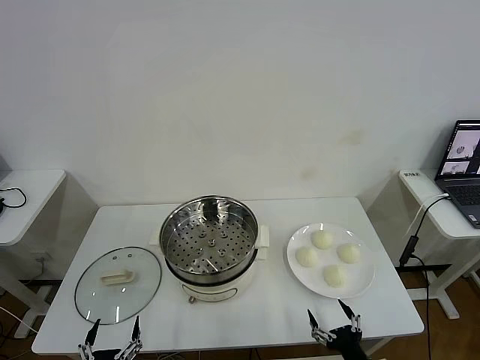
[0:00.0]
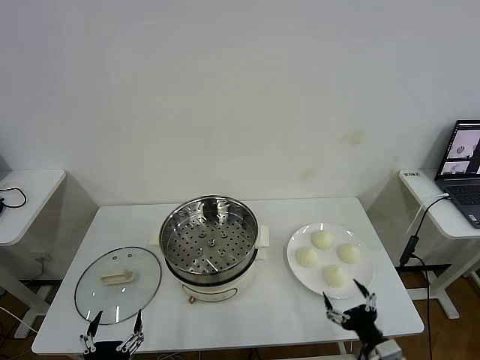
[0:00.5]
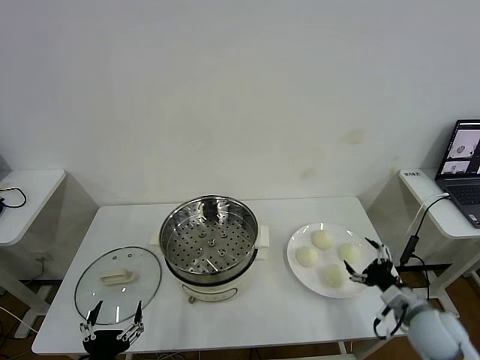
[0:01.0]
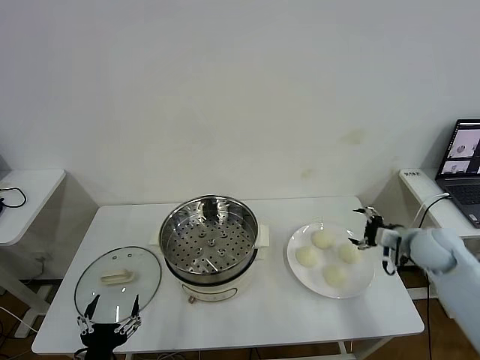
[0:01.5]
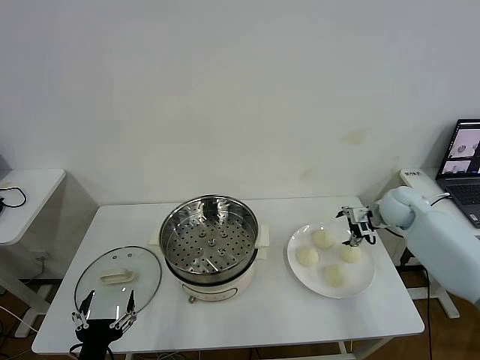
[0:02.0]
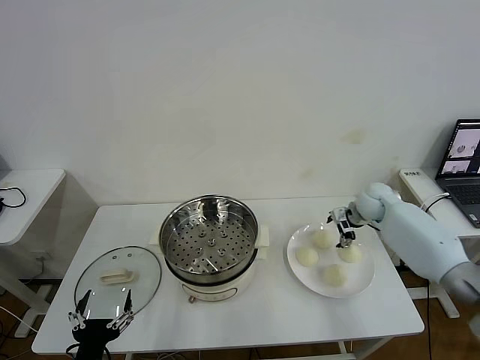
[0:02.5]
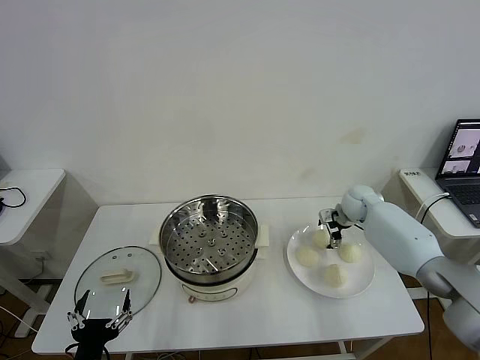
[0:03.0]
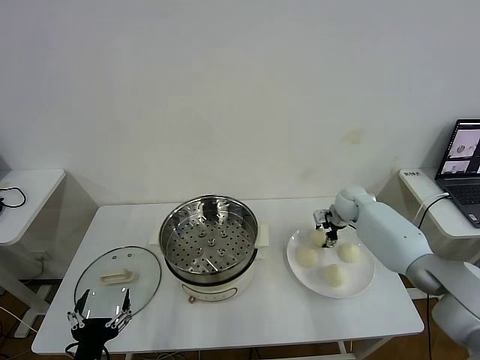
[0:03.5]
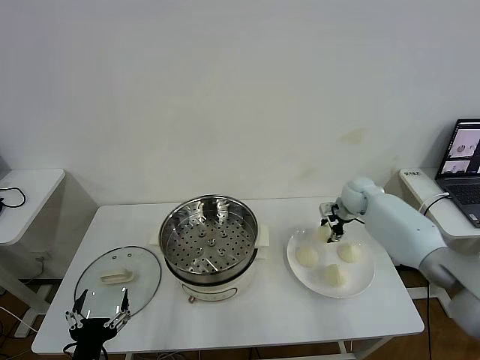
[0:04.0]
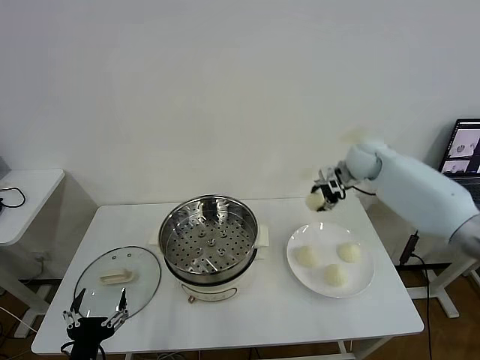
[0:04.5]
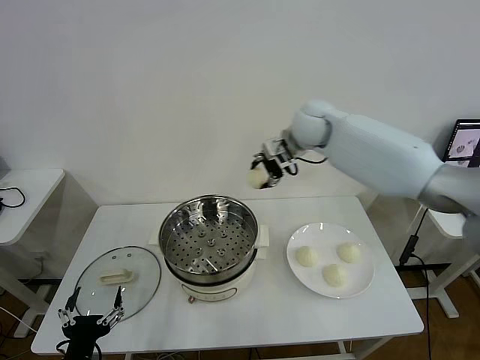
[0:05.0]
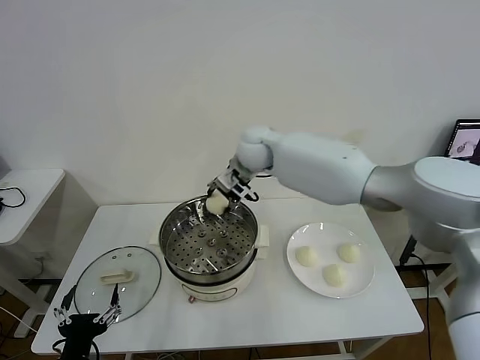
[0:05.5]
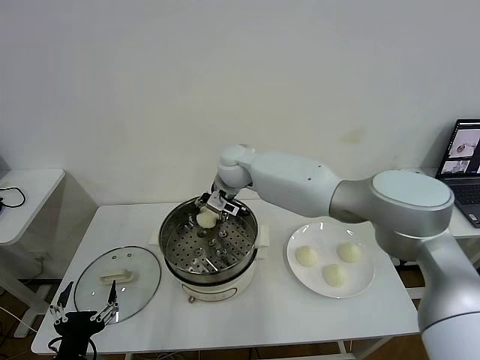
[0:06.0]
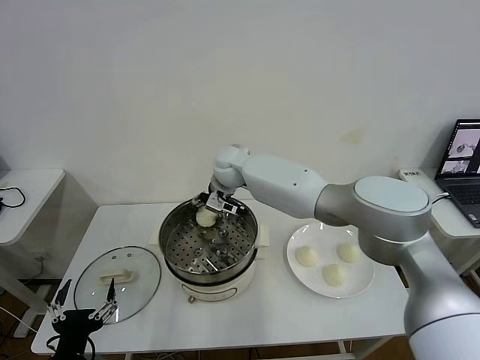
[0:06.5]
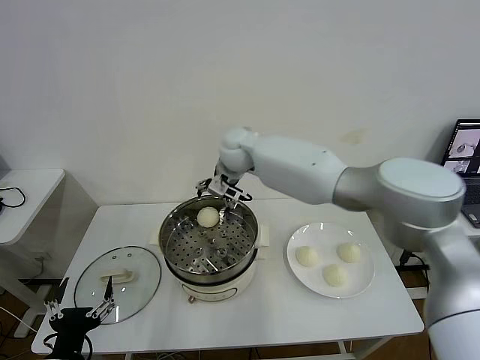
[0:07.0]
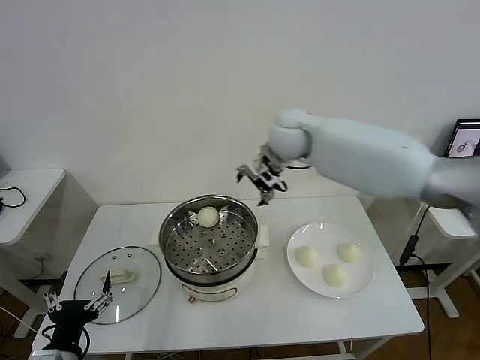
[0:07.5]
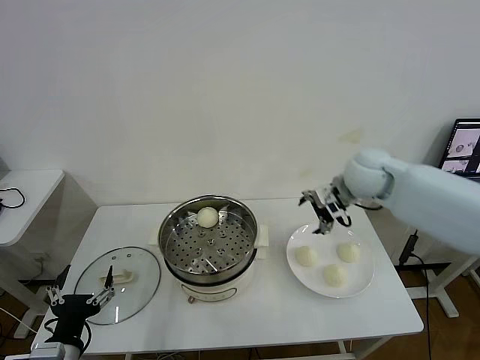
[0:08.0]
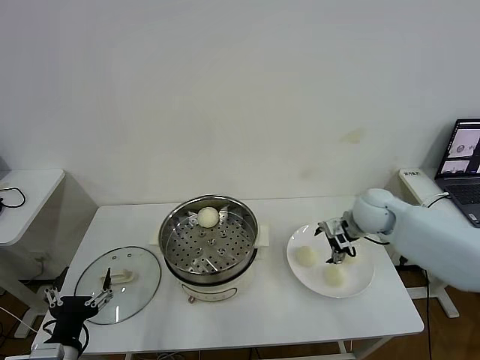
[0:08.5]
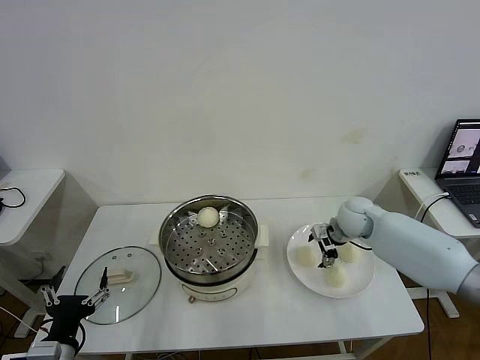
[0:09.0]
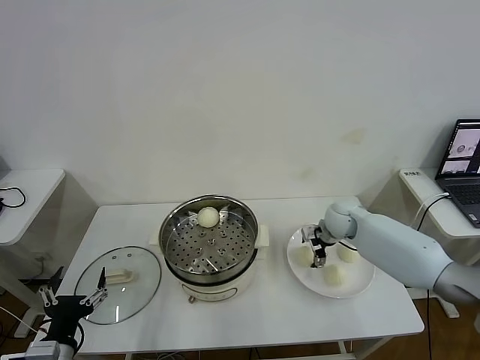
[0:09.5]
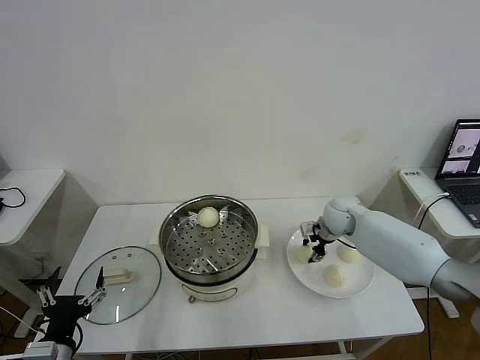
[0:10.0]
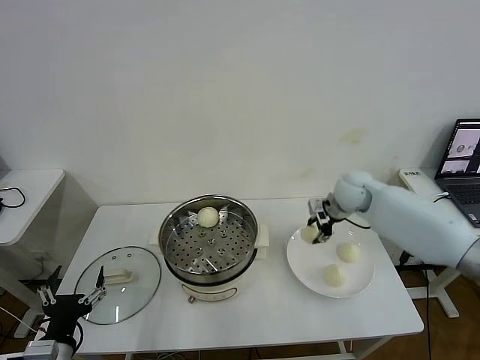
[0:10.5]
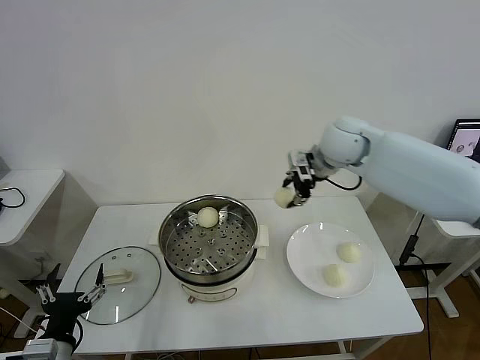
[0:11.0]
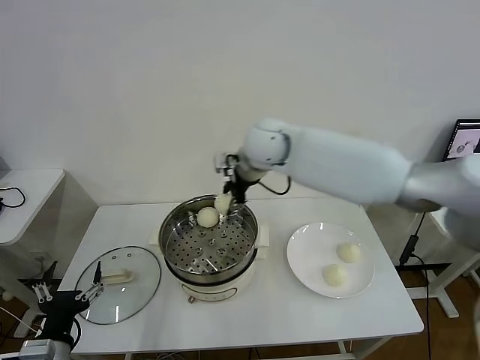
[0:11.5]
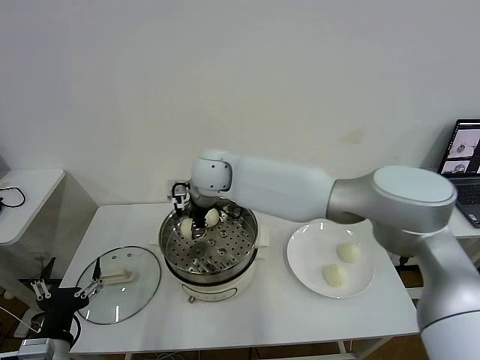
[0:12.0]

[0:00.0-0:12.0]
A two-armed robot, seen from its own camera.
Task of the whole recording: take steamed baozi put them in steamer then cover it.
Step, 0:00.0 to 0:03.5: Grasp the baozi in the plate with right gripper.
Step, 0:04.0 to 0:06.5: Place the baozi on the steamer with right gripper.
Step, 0:07.0 to 0:10.0: Grasp the baozi in the plate with right gripper.
0:02.0 to 0:04.0: The right gripper goes about 10 cm forward and to the left, and closes up.
0:04.0 to 0:06.0: The right gripper is displaced to the left by about 35 cm.
0:06.0 to 0:08.0: The right gripper shifts some 30 cm to the right, and opens up.
0:08.0 to 0:10.0: The right gripper is displaced downward by some 15 cm, and closes.
0:10.0 to 0:12.0: The right gripper is displaced to the left and upward by some 35 cm.

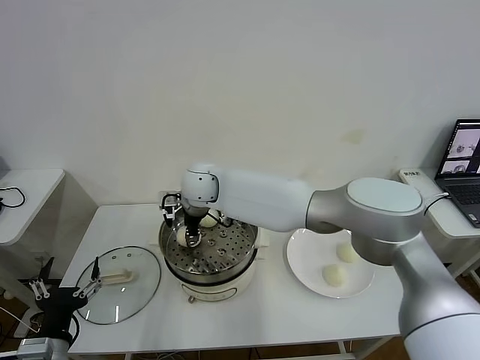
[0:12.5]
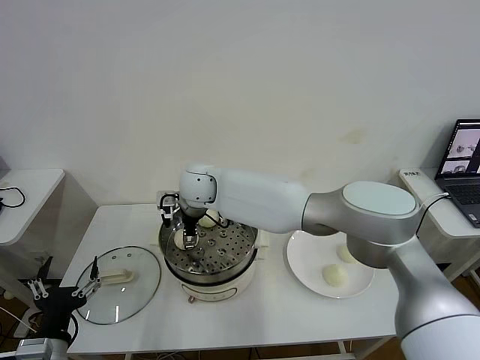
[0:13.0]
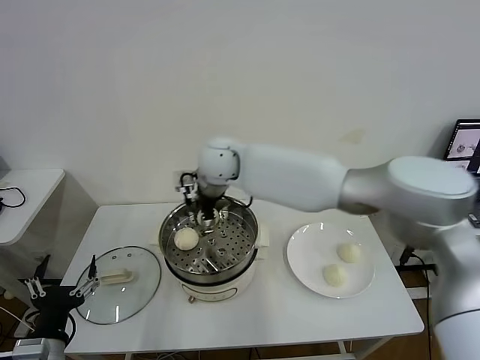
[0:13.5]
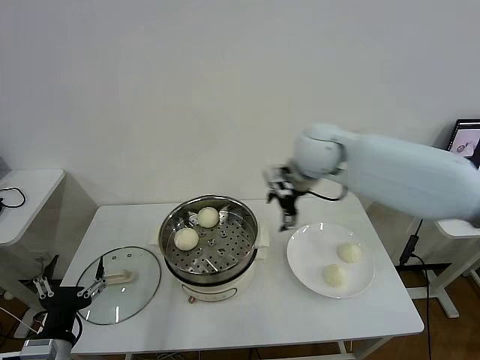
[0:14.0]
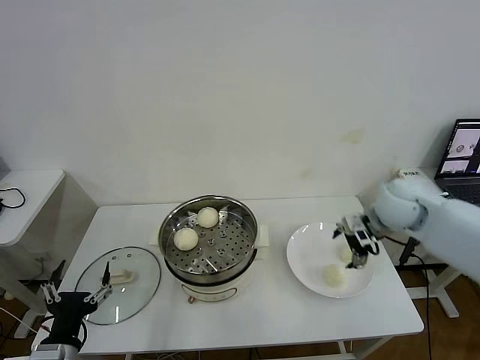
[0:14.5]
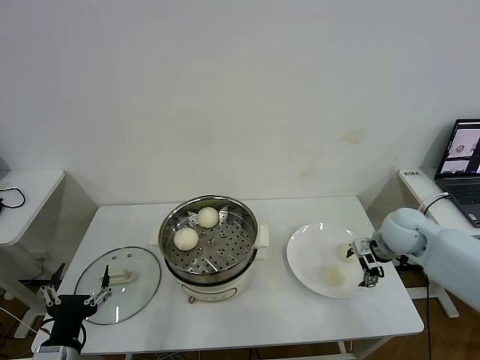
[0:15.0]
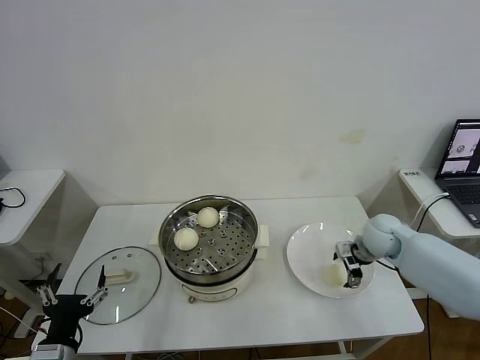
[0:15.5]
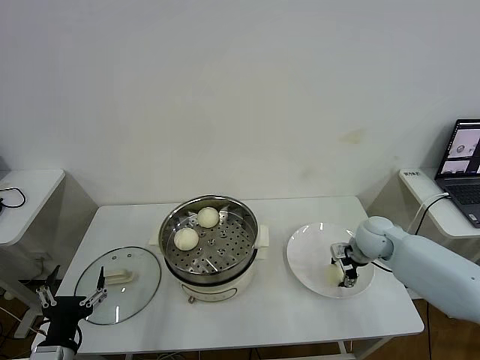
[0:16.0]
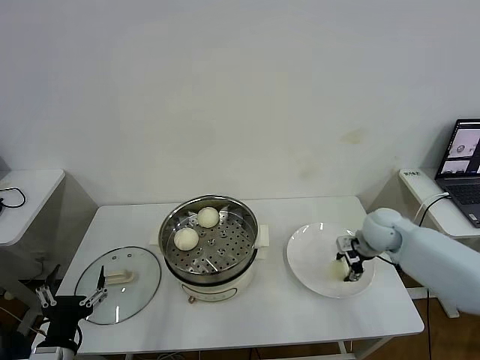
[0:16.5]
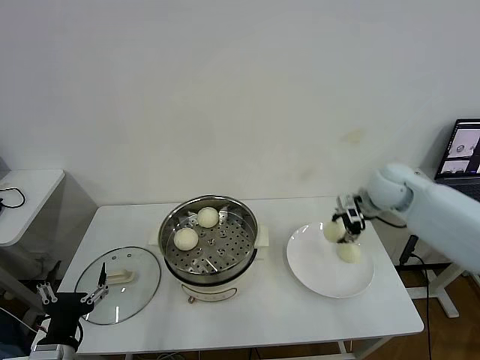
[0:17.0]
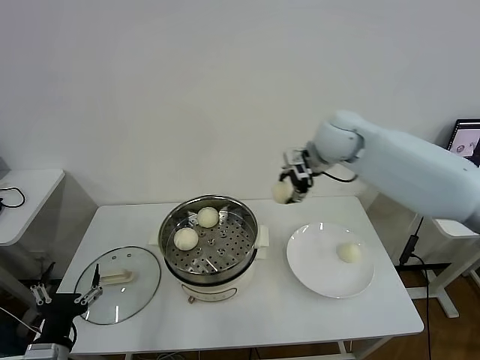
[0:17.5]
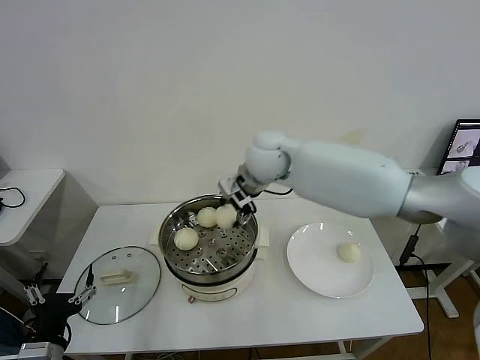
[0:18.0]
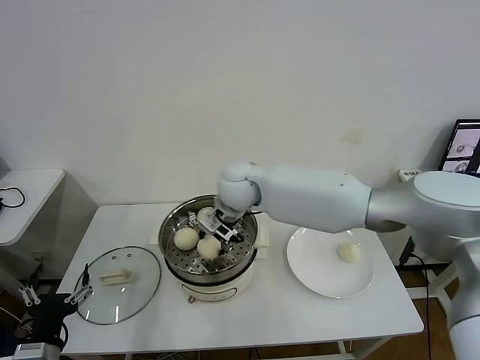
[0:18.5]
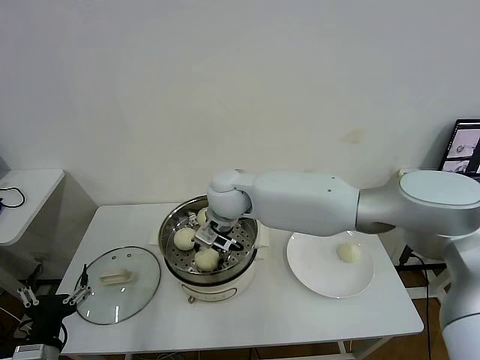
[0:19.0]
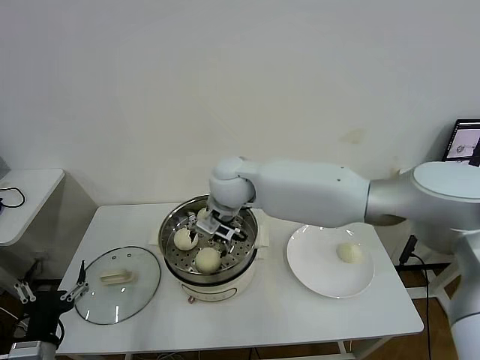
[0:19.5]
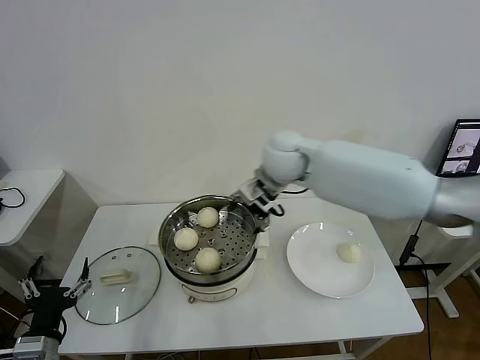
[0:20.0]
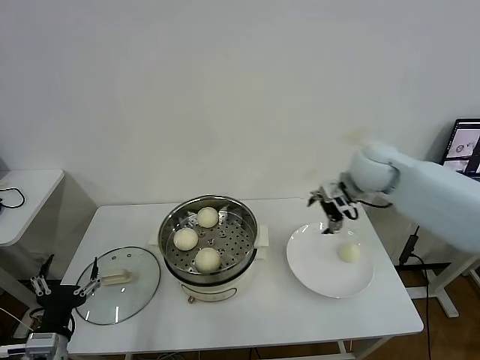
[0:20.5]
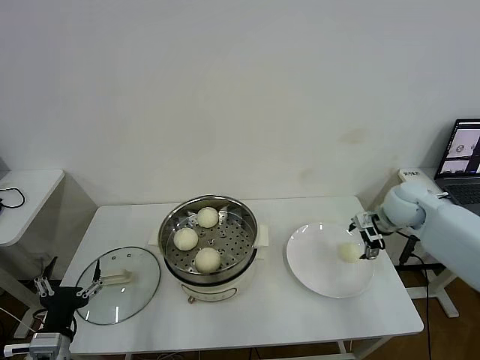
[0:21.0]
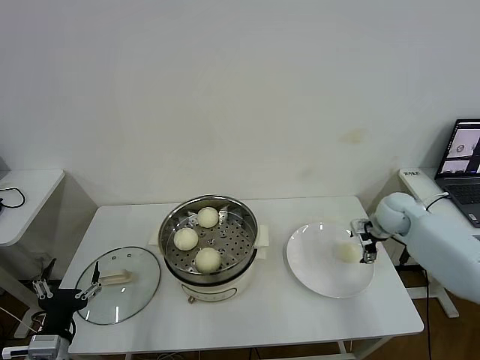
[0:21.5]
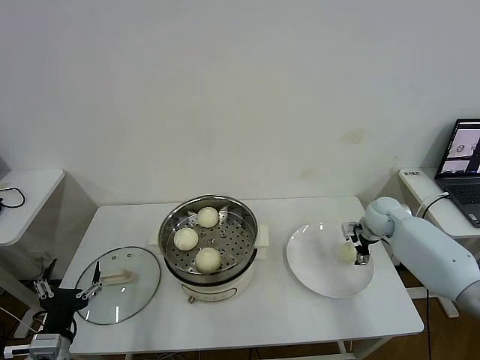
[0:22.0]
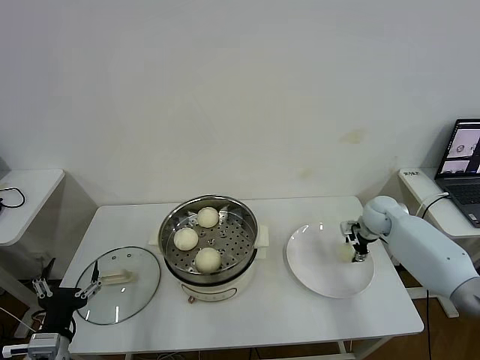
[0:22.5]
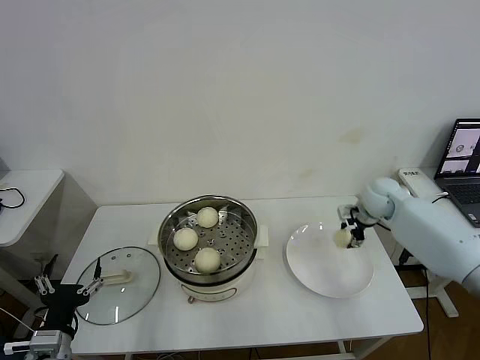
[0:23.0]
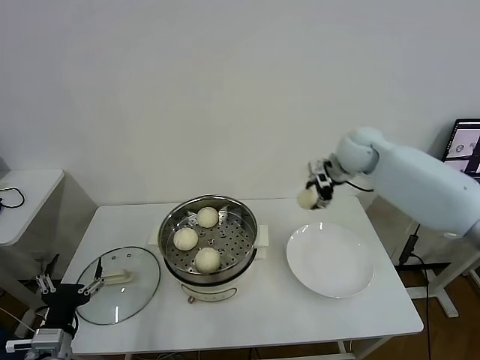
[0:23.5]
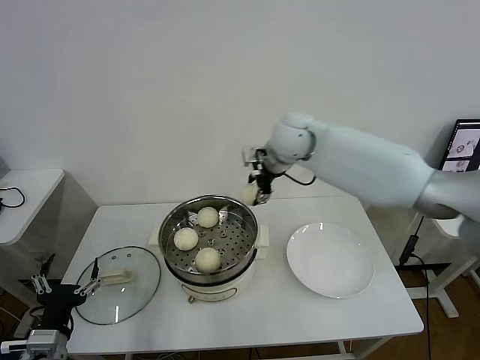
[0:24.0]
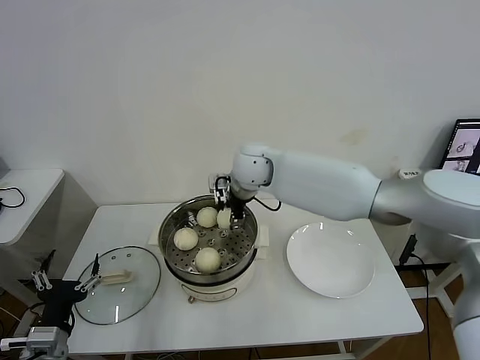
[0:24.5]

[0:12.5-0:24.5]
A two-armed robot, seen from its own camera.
Task of the whole recording: take steamed baozi put them in steamer then cover it.
Step, 0:13.5 to 0:16.0: Grasp the baozi in the plate with right gripper.
Step, 0:16.5 to 0:19.0: Place the baozi on the steamer with right gripper.
Step, 0:19.5 to 0:22.5: Grasp the baozi in the plate with right gripper.
0:12.5 to 0:14.5: The right gripper is displaced to the right by about 40 cm, and opens its fingers.
0:14.5 to 0:16.5: The right gripper heads downward, covering about 10 cm, and closes up.
0:16.5 to 0:18.5: The right gripper goes approximately 35 cm to the left.
0:18.5 to 0:20.5: The right gripper moves to the right, roughly 30 cm, and opens up.
0:20.5 to 0:22.5: The right gripper goes roughly 20 cm downward and to the right, and closes up.
0:22.5 to 0:24.5: The right gripper travels to the left and upward by roughly 40 cm.

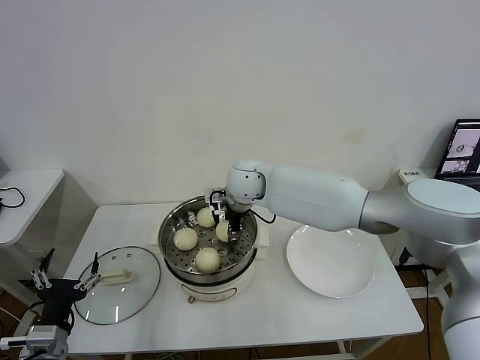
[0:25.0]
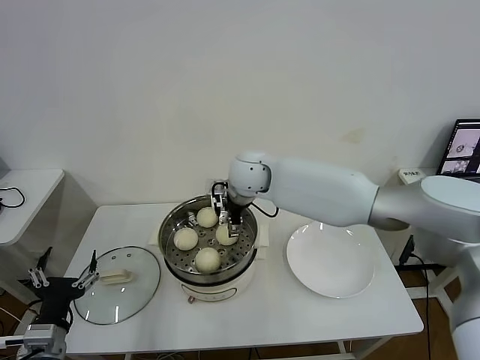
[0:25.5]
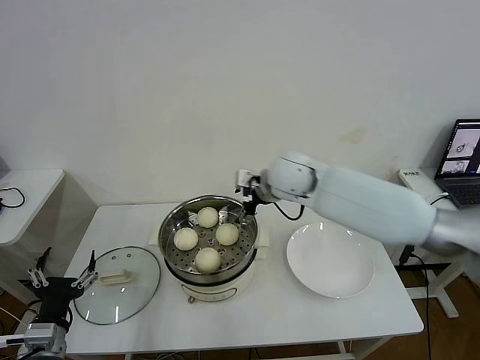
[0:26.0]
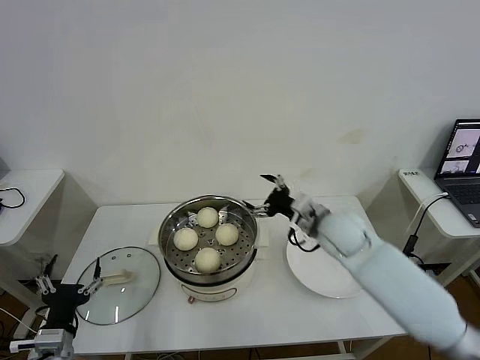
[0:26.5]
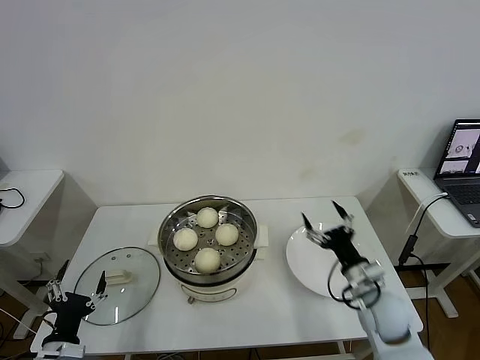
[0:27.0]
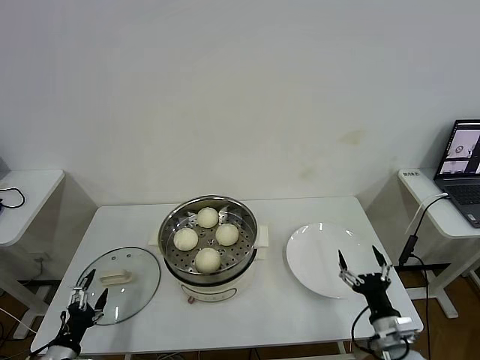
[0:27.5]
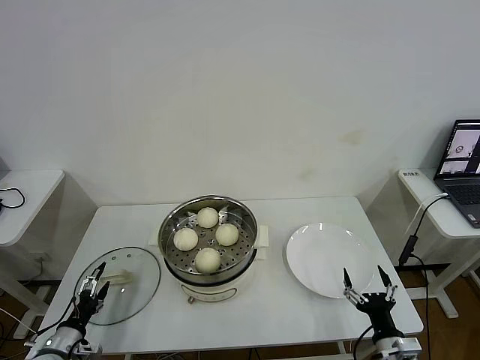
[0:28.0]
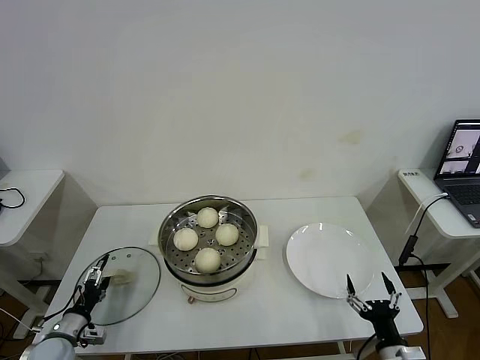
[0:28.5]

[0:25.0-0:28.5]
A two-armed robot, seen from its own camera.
Task of the whole recording: take steamed baozi put them in steamer then cover it.
0:25.0 to 0:27.0: The right gripper is displaced to the right, backward and downward by some 40 cm, and opens up. The left gripper moves downward, about 5 cm.
0:27.0 to 0:28.5: The right gripper is displaced backward and downward by roughly 15 cm. The left gripper moves forward, downward and to the left, about 15 cm.
